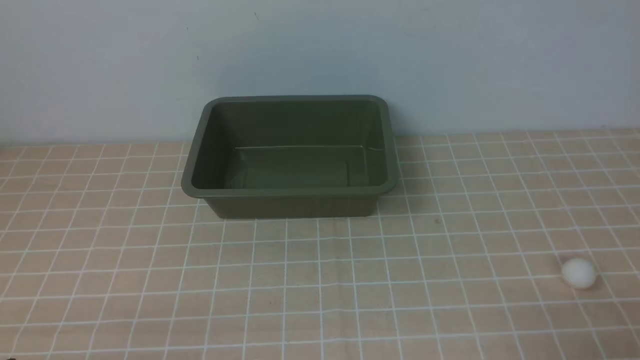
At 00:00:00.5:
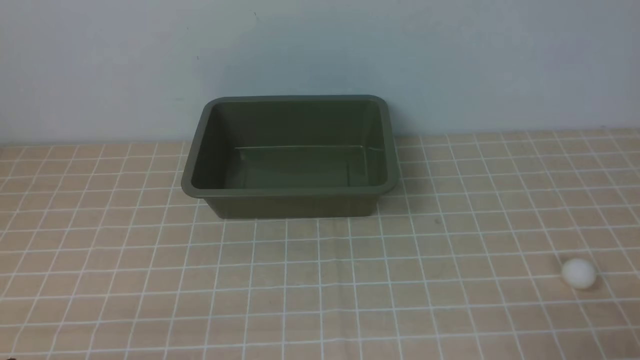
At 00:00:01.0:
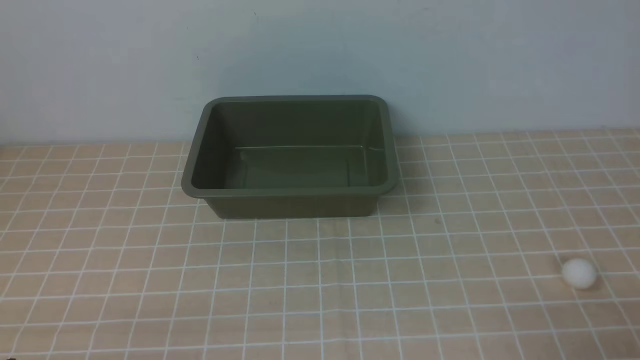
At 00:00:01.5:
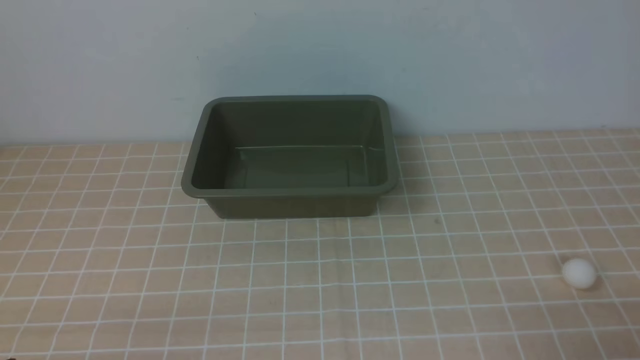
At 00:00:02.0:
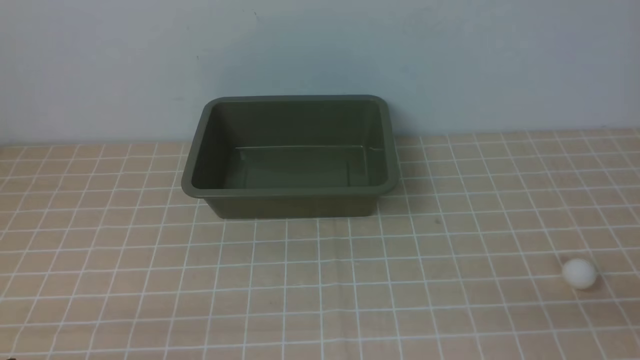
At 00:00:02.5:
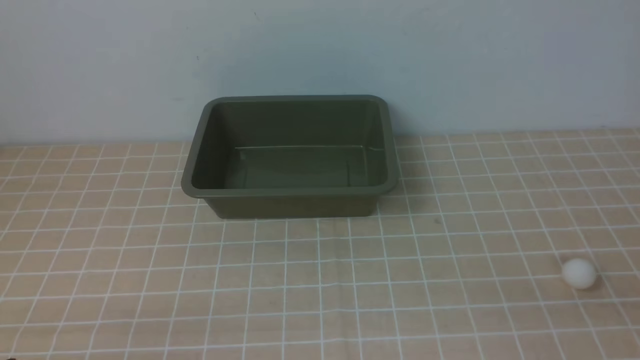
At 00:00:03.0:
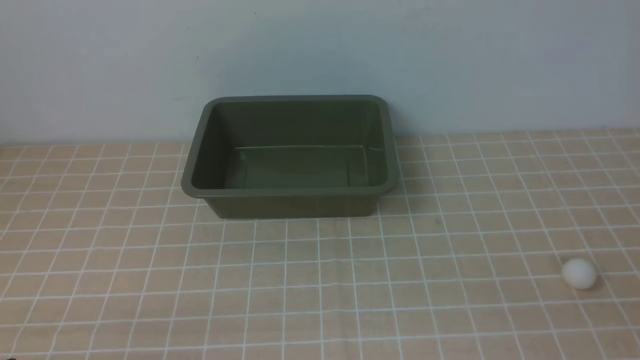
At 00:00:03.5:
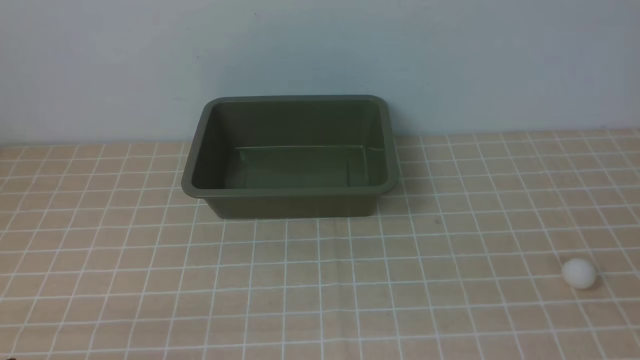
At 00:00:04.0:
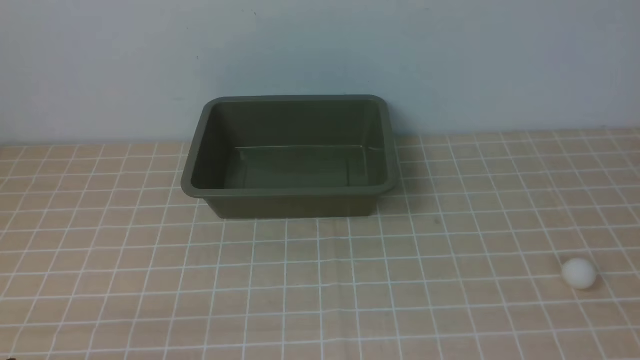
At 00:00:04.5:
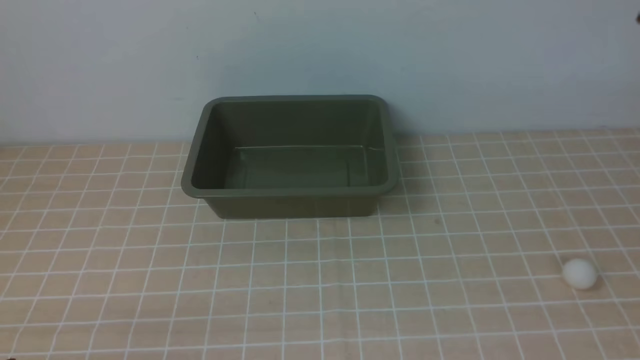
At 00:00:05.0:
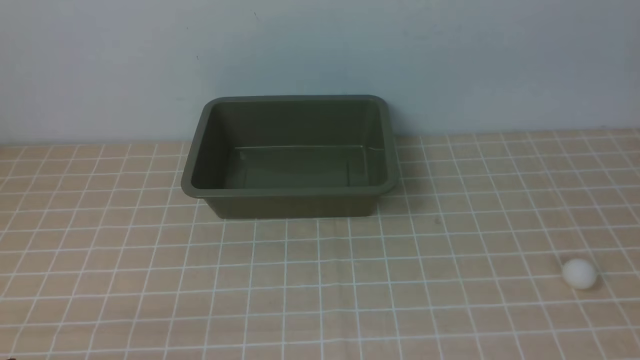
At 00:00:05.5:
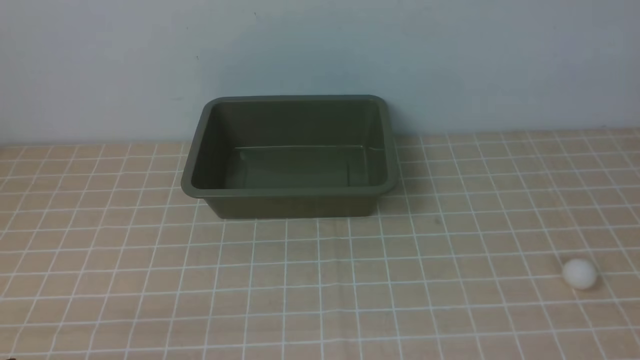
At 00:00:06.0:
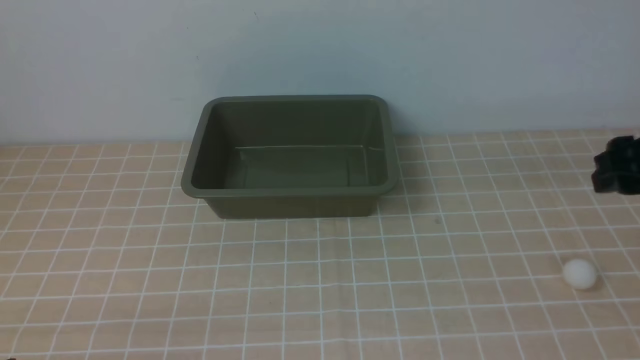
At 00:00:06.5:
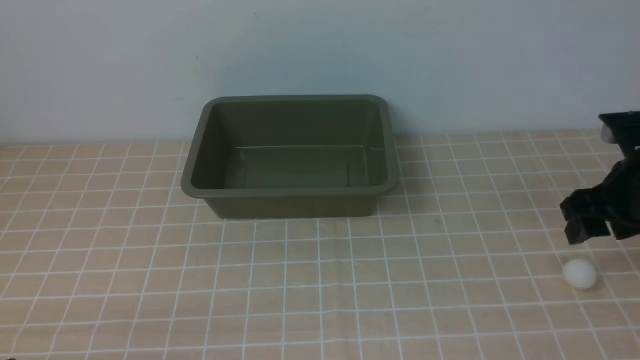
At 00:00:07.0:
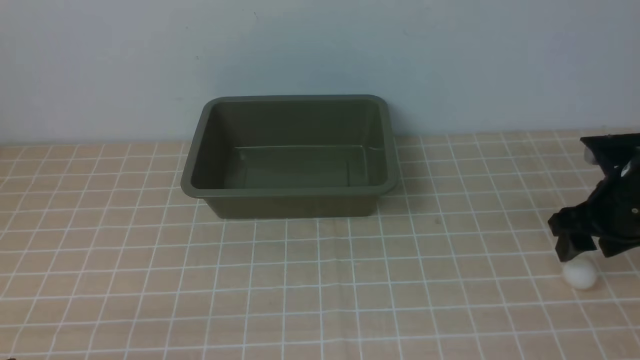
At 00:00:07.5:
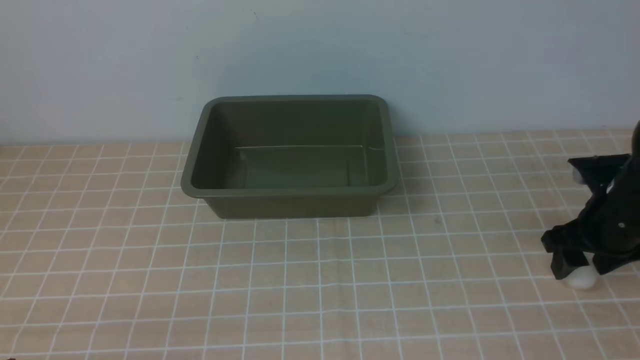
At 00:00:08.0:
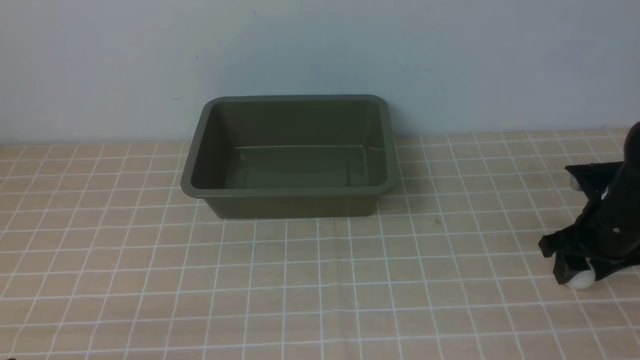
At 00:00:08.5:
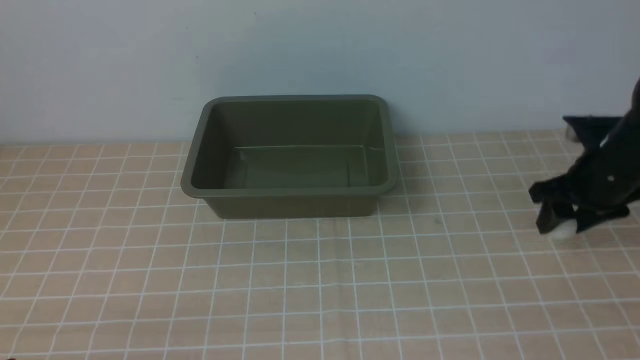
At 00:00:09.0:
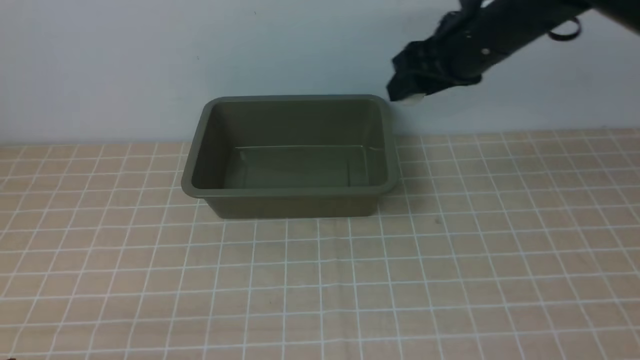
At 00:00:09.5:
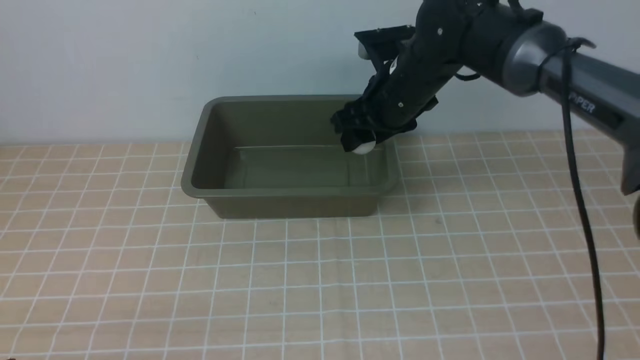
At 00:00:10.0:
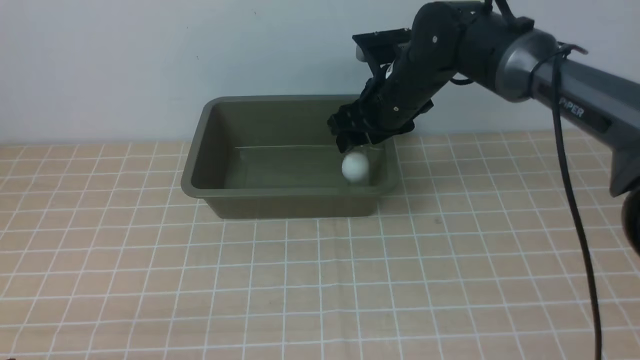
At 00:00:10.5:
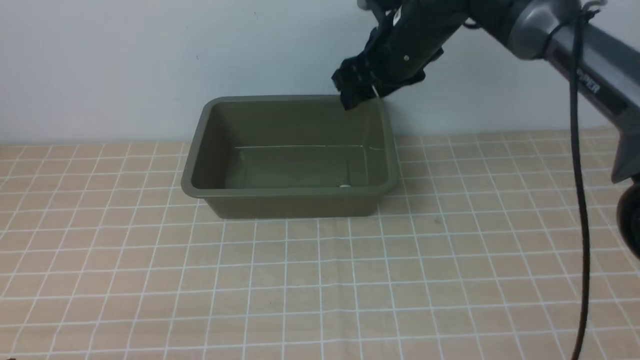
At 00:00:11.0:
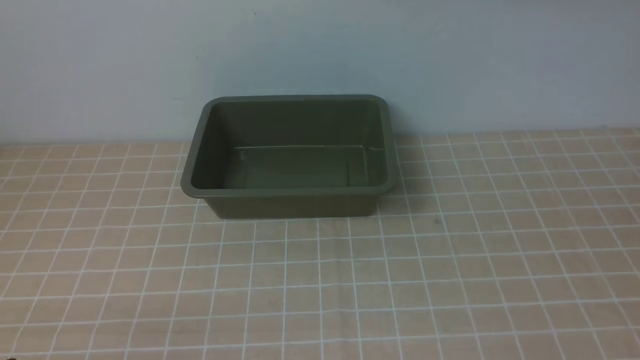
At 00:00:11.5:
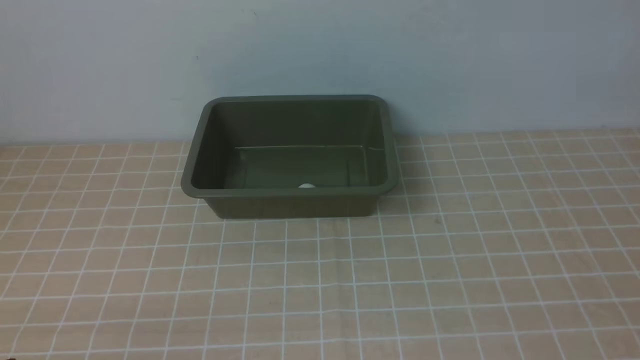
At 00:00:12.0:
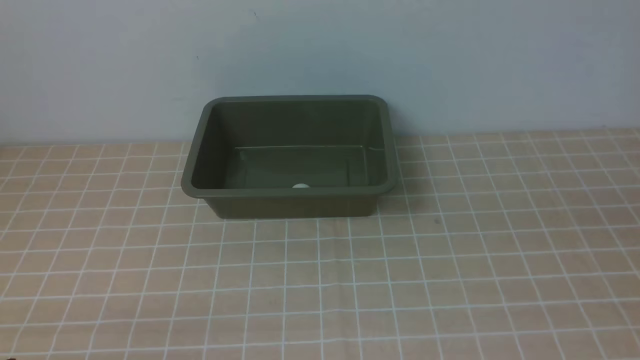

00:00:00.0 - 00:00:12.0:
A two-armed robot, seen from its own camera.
Step, 00:00:00.0 - 00:00:08.0: use the right arm to clamp the table tennis ball closest to it.
Step, 00:00:08.5 - 00:00:10.0: use the right arm to put the table tennis ball into the box.
00:00:04.0 - 00:00:06.0: The right gripper is displaced forward and downward by about 25 cm.
00:00:06.0 - 00:00:08.0: The right gripper heads downward, covering some 15 cm.
00:00:08.0 - 00:00:10.0: The right gripper is displaced to the left, forward and upward by roughly 25 cm.
00:00:10.0 - 00:00:12.0: The right gripper is displaced backward, to the right and upward by approximately 40 cm, and closes its fingers.

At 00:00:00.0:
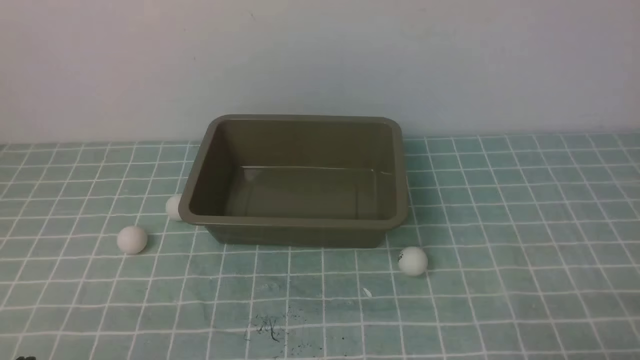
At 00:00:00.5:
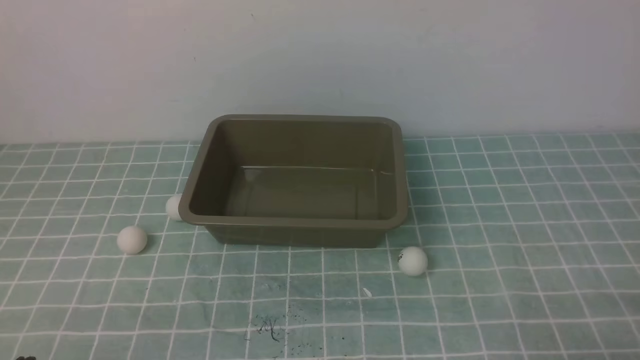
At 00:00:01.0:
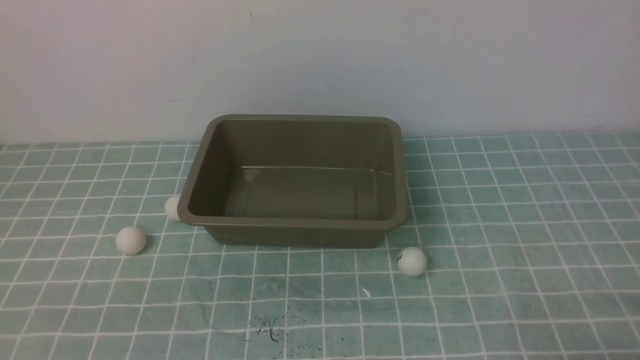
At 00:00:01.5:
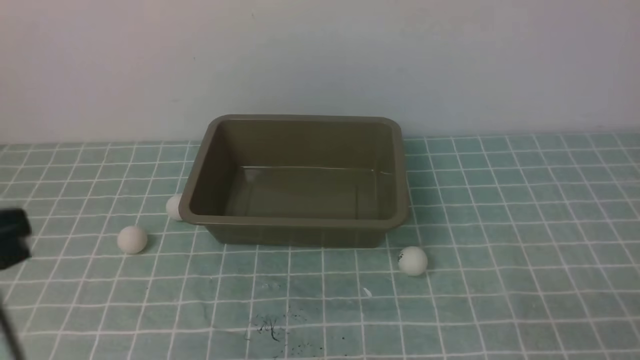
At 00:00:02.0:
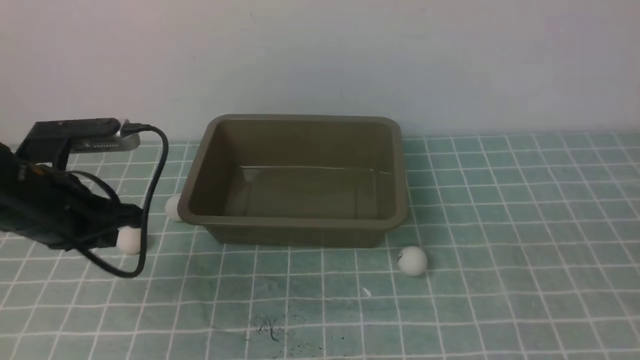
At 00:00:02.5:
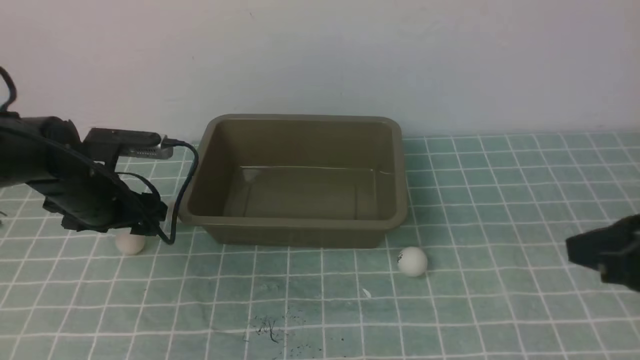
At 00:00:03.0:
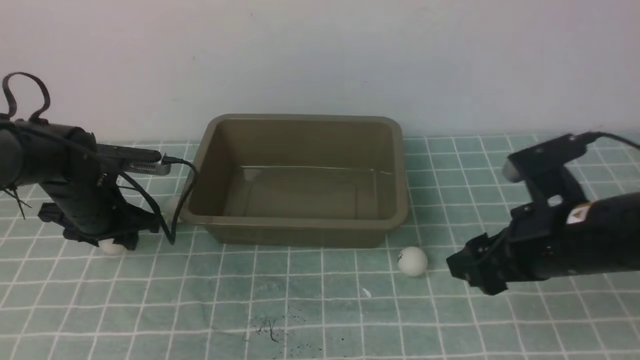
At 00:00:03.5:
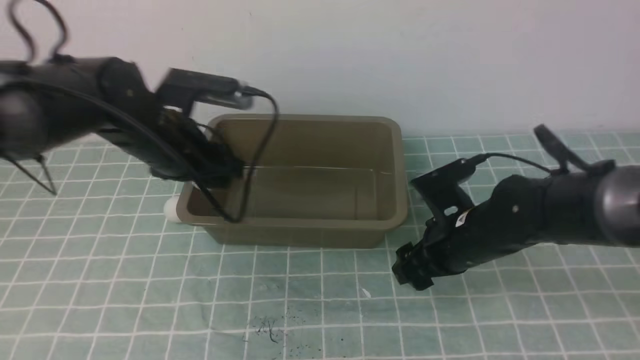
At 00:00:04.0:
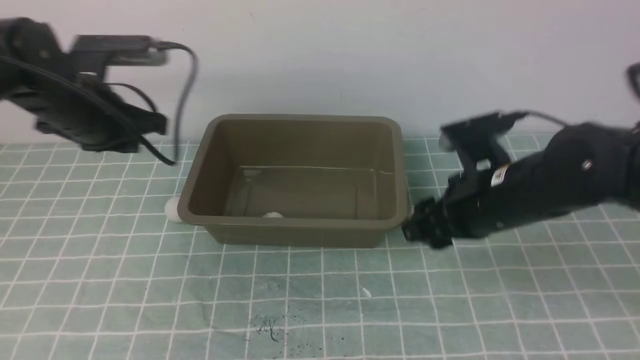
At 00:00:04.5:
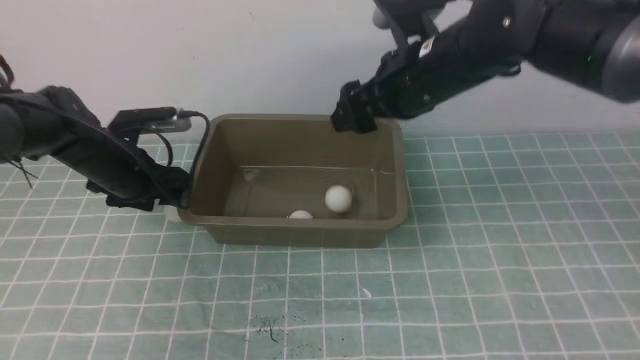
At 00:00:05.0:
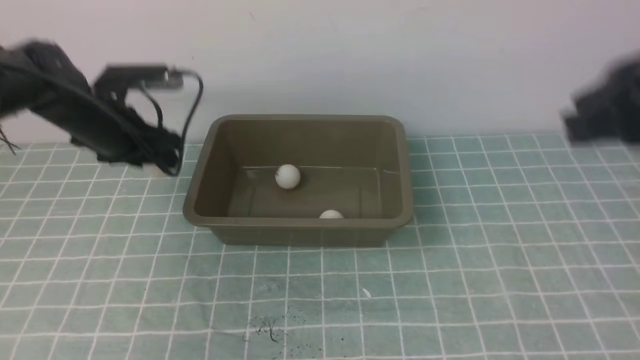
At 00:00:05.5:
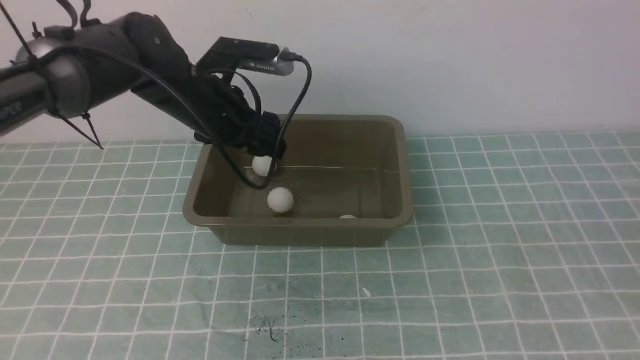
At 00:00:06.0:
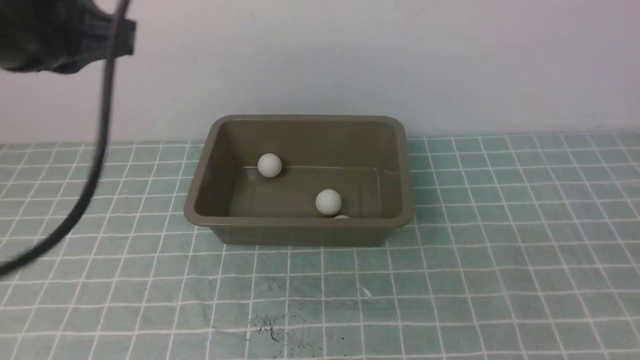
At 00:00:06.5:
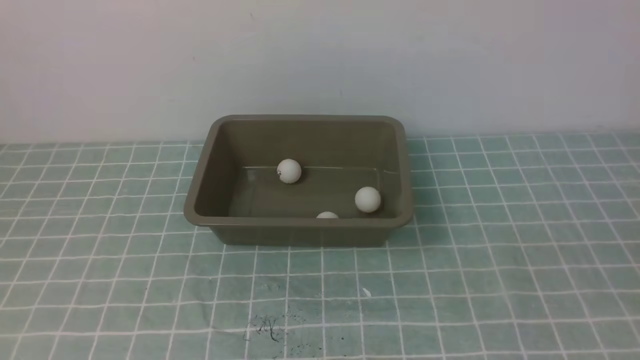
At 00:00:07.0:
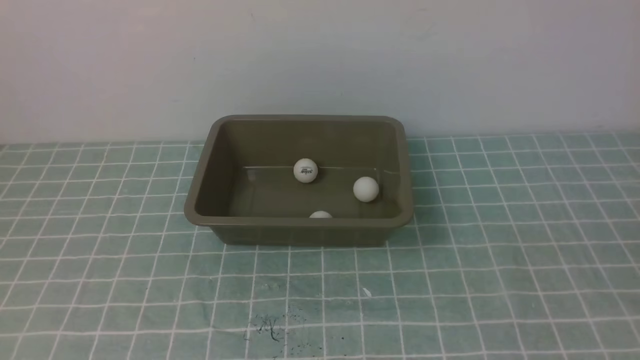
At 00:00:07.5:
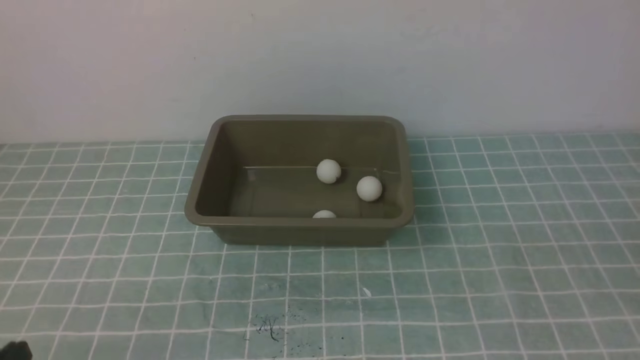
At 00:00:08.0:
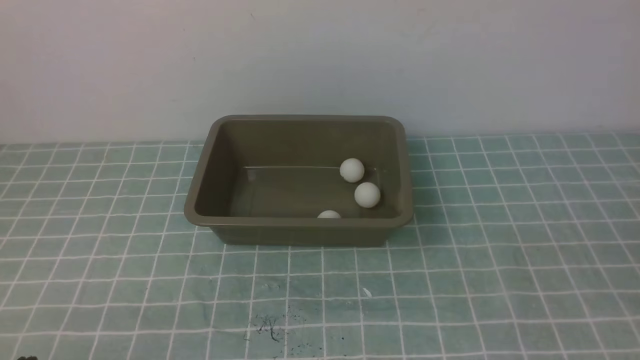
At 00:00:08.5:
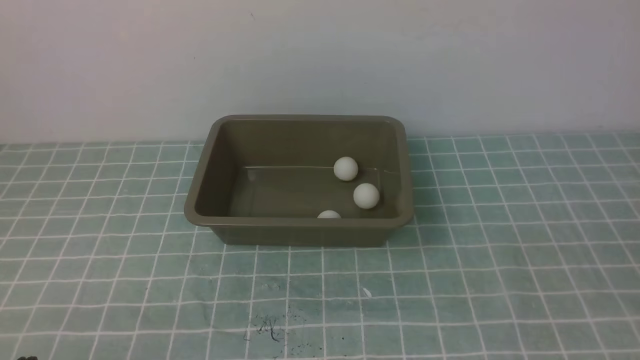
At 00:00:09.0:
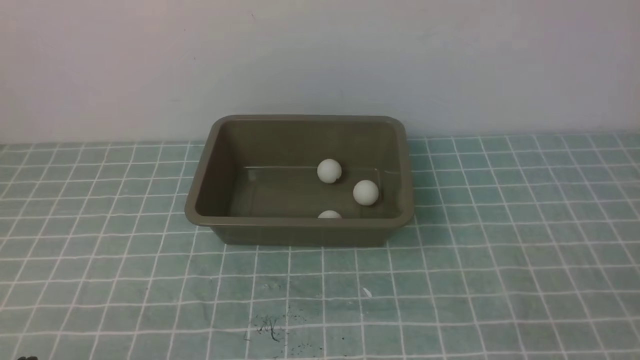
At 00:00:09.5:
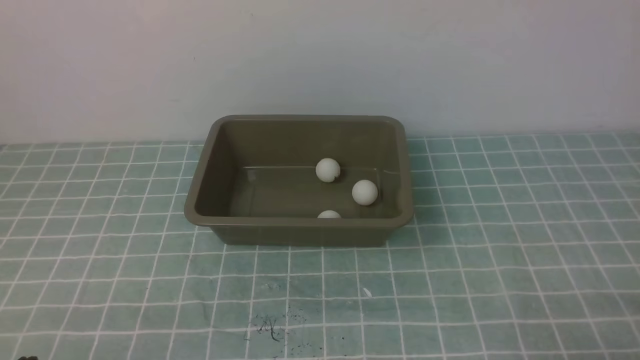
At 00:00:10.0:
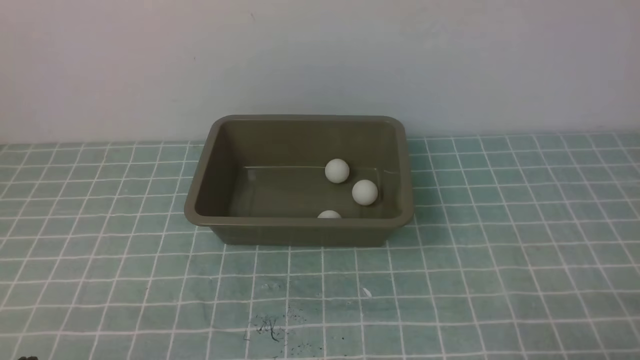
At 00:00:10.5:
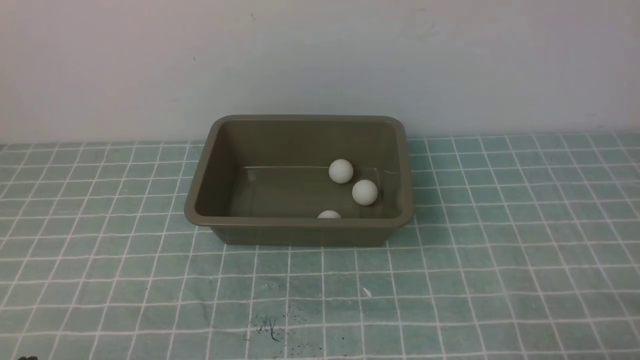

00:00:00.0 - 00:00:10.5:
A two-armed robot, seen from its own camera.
Step, 00:00:00.0 - 00:00:03.0: use the left arm to clamp the table tennis ball closest to it.
Step, 00:00:05.0 - 00:00:05.5: use the left arm to put the table tennis ball into the box.
00:00:00.0 - 00:00:02.0: The left gripper heads forward, covering about 25 cm. Meanwhile the right gripper moves upward, some 10 cm.
00:00:02.0 - 00:00:04.0: The left gripper shifts roughly 10 cm forward, and opens and closes again; the right gripper moves forward and to the left, some 25 cm, and opens its fingers.
00:00:04.0 - 00:00:06.5: The right gripper shifts approximately 35 cm backward and to the right, and closes. Meanwhile the left gripper moves backward, some 35 cm, and opens and closes again.
